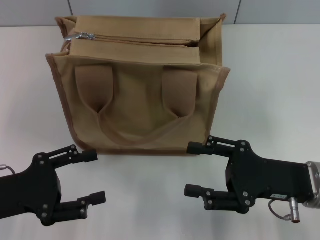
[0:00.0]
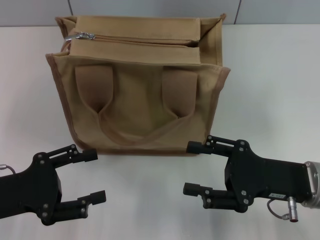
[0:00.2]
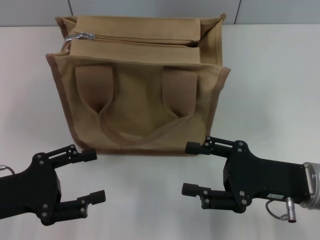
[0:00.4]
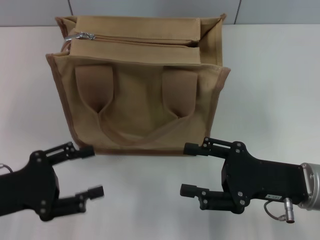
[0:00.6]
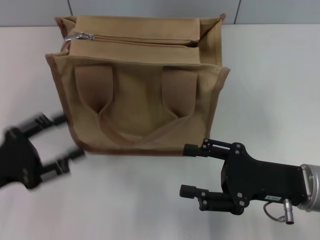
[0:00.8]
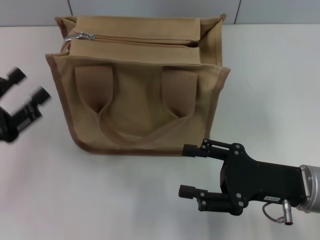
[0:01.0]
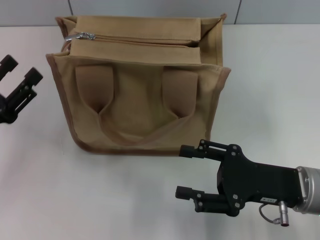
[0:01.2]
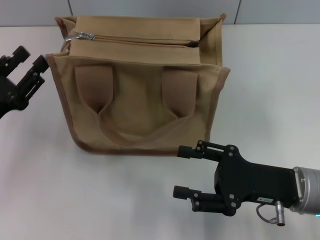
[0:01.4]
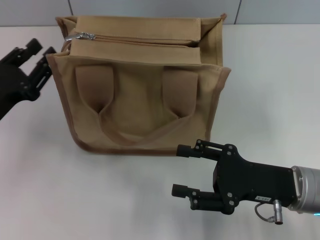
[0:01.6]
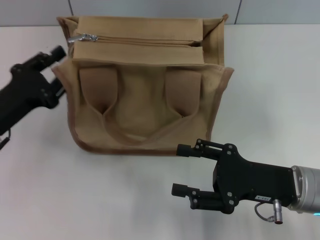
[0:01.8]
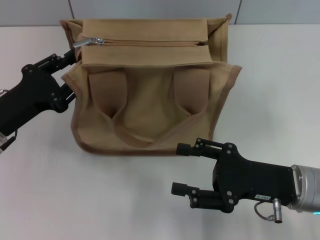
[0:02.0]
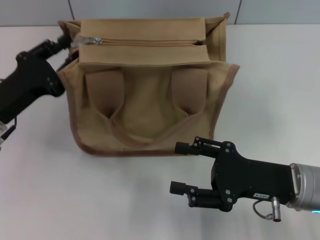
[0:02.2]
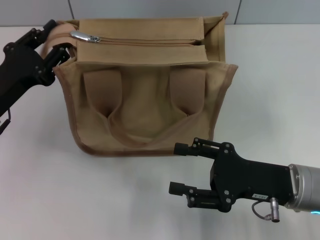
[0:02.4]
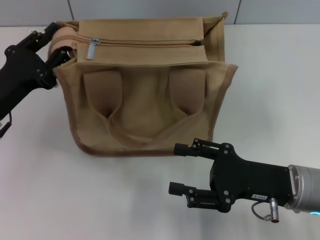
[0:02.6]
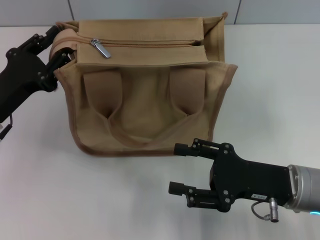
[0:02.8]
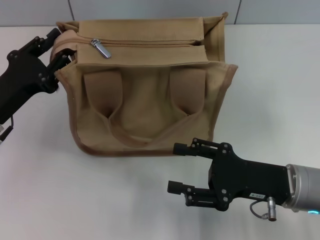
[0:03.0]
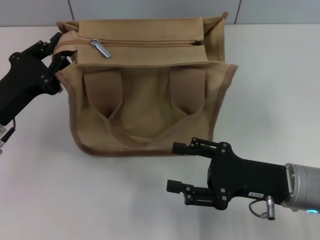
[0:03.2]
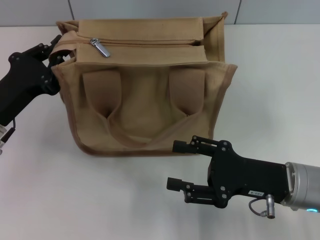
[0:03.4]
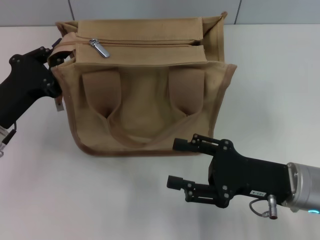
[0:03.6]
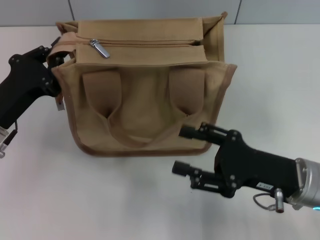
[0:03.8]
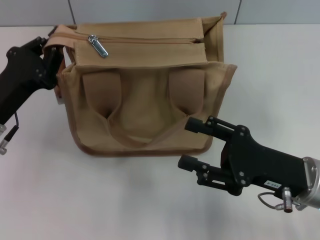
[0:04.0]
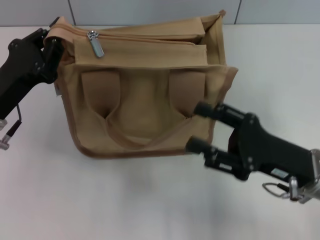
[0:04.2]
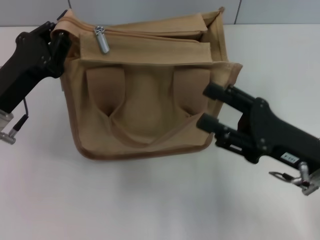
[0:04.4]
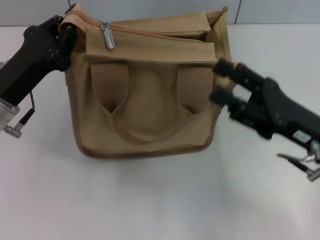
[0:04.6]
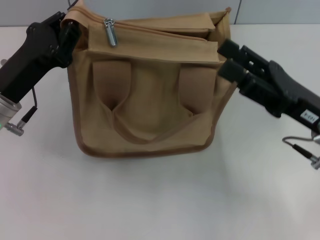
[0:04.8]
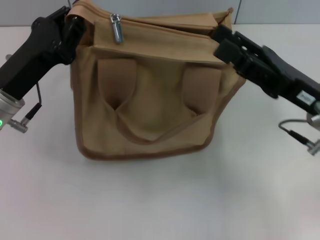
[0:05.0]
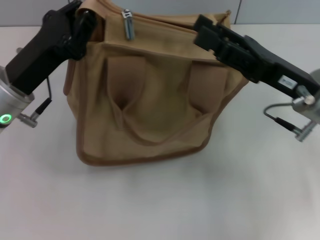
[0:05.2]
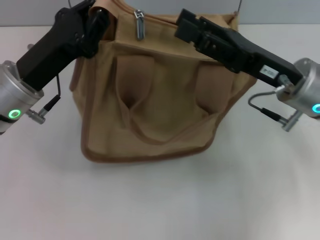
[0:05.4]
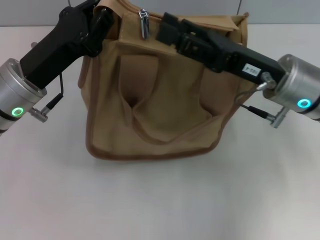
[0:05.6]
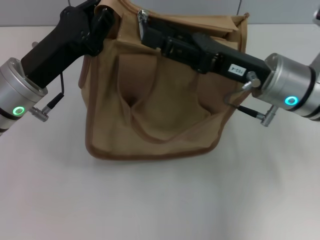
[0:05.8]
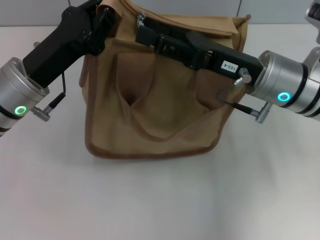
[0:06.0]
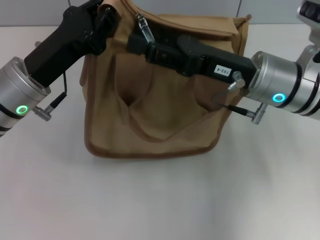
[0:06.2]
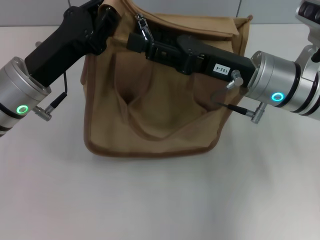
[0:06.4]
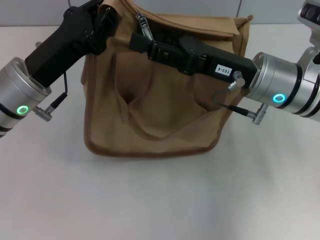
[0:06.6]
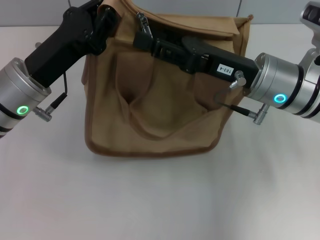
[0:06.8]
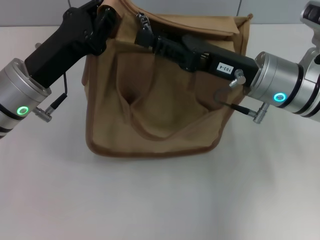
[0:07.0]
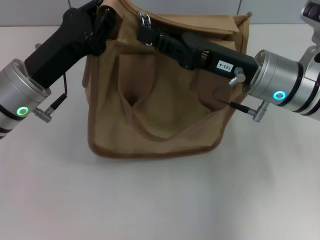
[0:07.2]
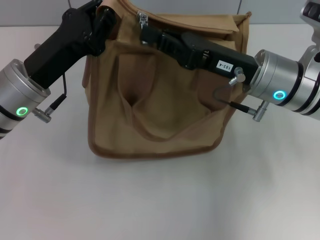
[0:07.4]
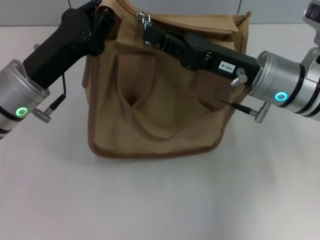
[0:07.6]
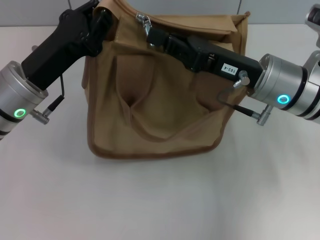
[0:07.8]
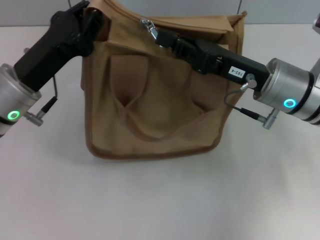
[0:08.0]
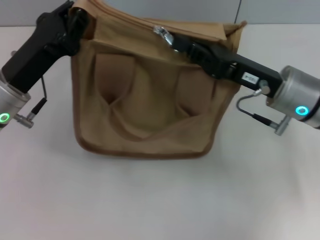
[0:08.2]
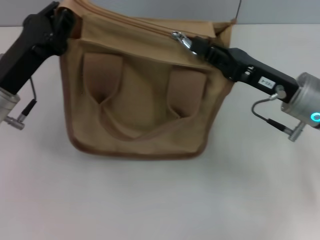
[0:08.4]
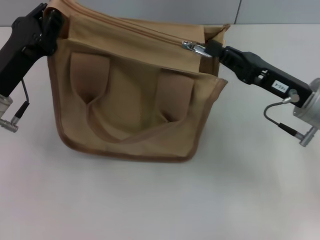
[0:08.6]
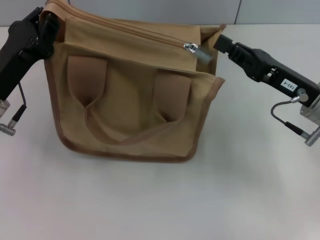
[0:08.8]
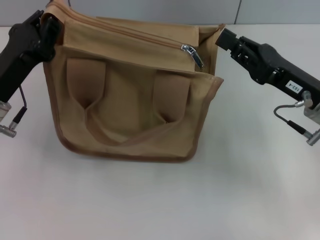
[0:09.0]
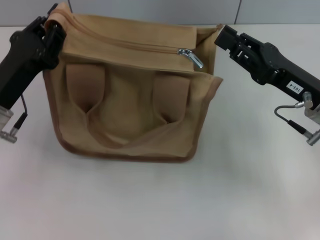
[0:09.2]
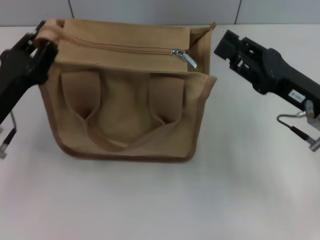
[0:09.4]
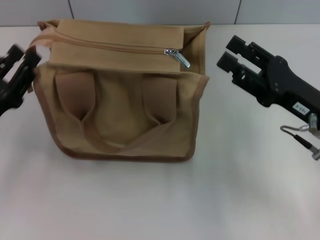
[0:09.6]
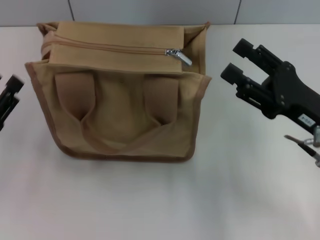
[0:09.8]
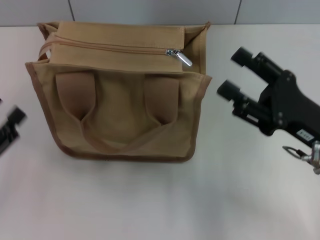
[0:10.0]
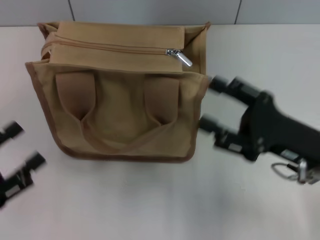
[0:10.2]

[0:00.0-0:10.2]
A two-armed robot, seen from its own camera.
Step, 0.0 to 9.0 s: Pull up the zipper with your right hand.
Step, 9.2 to 9.8 s: Grab the zipper with your left hand.
1.4 to 3.0 s: The left gripper closes up.
3.0 to 4.4 s: The left gripper closes up.
4.4 to 5.8 s: The left gripper shifts by about 5 cm. The right gripper goes some 10 cm forward, to the left and upward.
5.8 to 7.2 s: The right gripper closes its fingers.
7.2 to 8.8 s: The left gripper shifts by approximately 5 cm. Meanwhile the right gripper goes roughly 10 cm to the right, and closes.
8.8 to 10.2 s: The left gripper goes some 15 cm backward and to the left, and opens its fingers; the right gripper is displaced backward by roughly 5 cm, and opens its fingers.

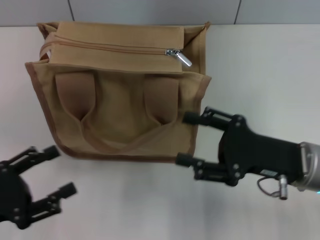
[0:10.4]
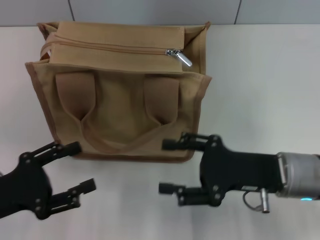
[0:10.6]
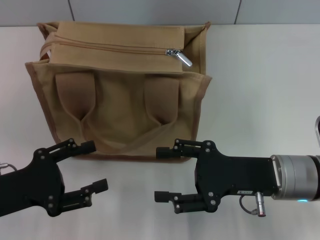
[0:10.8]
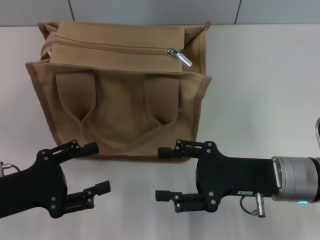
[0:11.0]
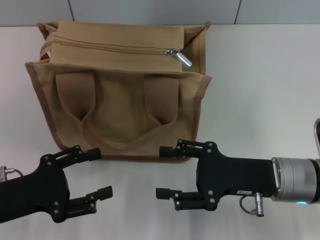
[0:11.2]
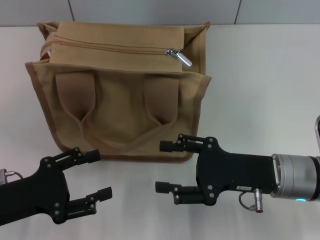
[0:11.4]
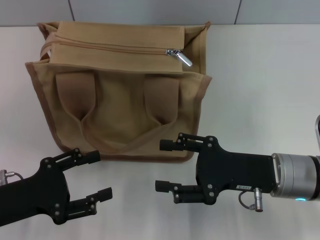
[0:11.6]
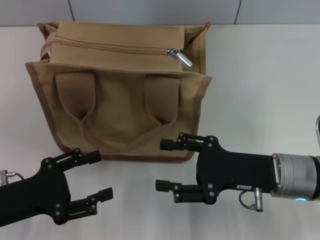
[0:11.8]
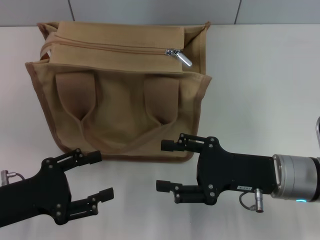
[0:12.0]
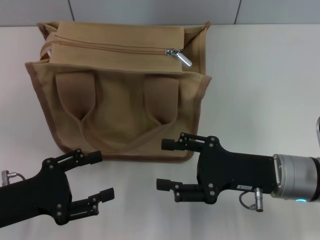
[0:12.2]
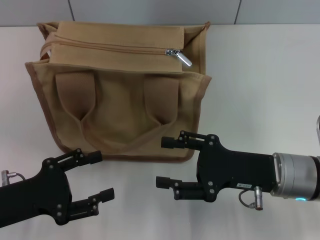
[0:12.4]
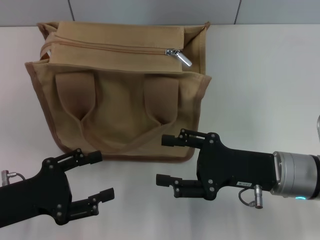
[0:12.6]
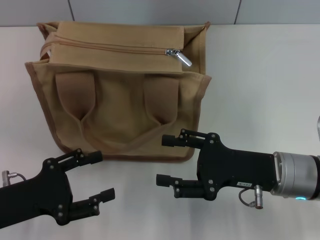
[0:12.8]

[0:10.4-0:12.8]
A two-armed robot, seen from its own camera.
10.4 to 11.6 s: The grippers make only small movements.
11.6 to 12.8 s: Both grippers stay about where they are.

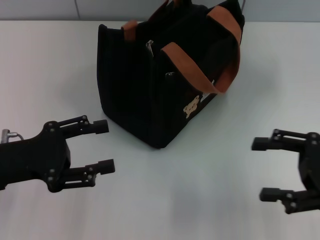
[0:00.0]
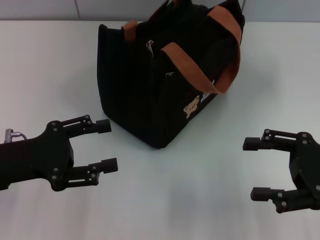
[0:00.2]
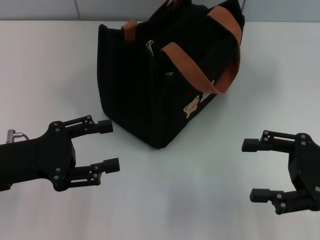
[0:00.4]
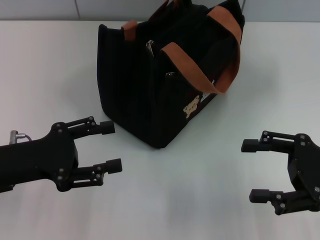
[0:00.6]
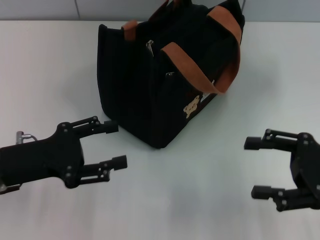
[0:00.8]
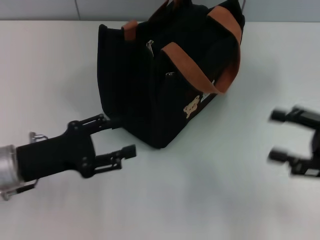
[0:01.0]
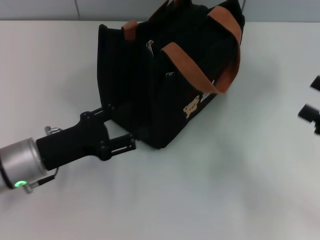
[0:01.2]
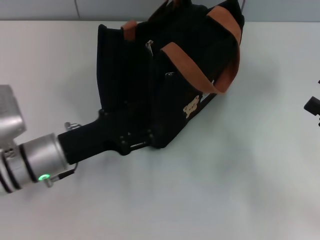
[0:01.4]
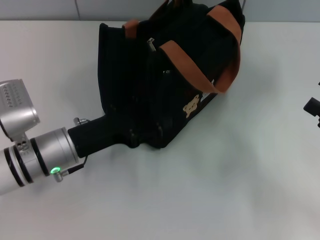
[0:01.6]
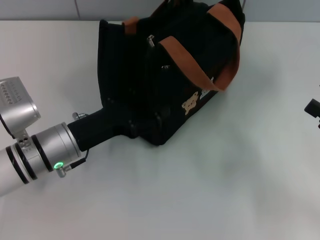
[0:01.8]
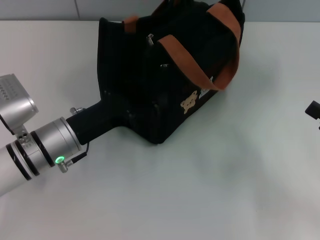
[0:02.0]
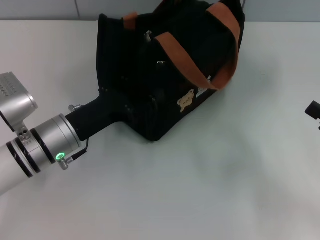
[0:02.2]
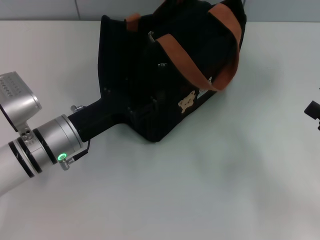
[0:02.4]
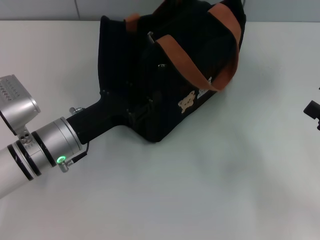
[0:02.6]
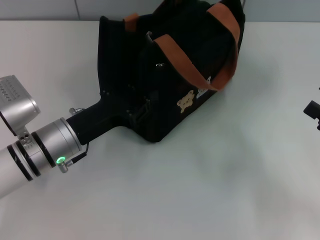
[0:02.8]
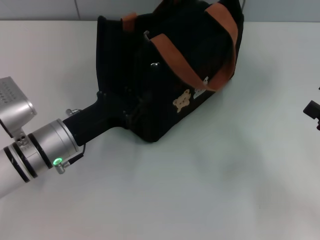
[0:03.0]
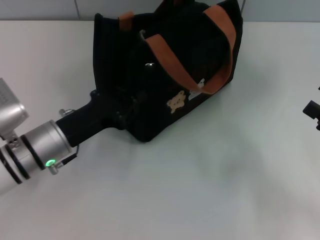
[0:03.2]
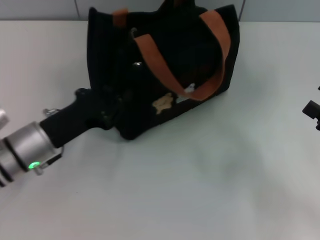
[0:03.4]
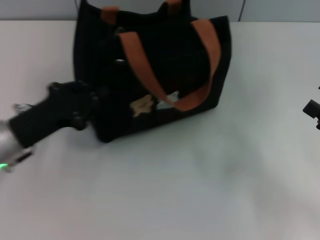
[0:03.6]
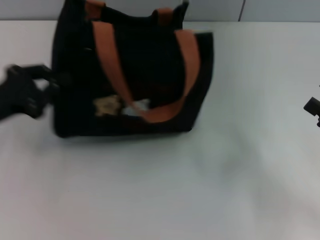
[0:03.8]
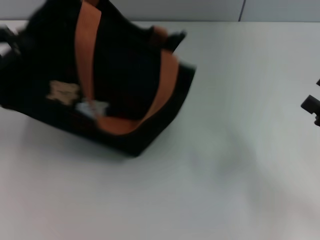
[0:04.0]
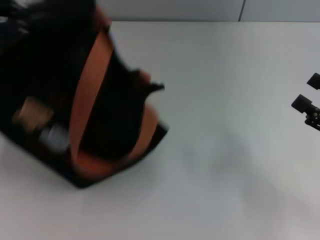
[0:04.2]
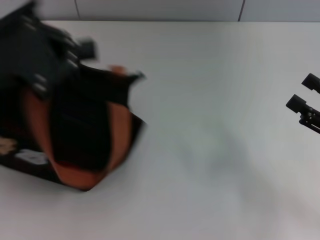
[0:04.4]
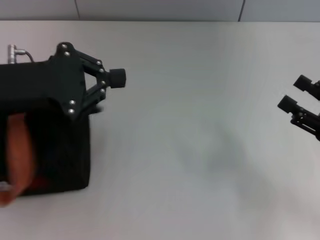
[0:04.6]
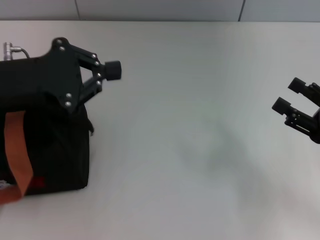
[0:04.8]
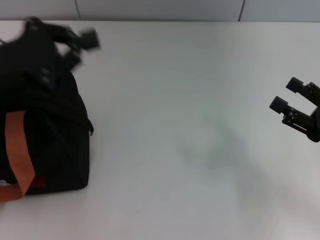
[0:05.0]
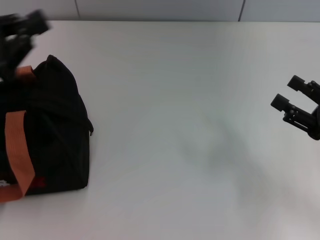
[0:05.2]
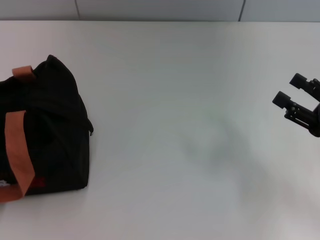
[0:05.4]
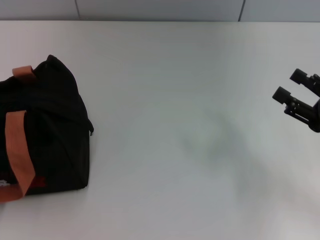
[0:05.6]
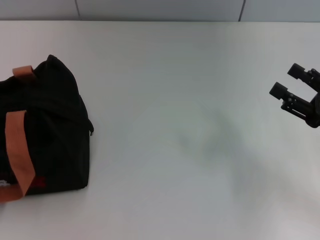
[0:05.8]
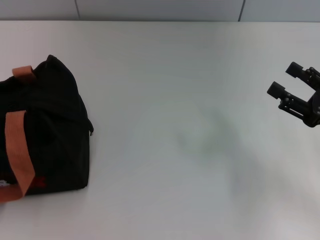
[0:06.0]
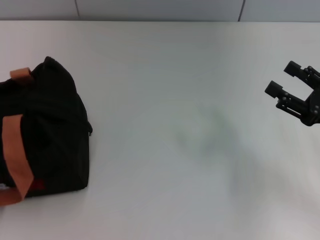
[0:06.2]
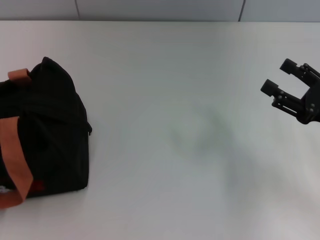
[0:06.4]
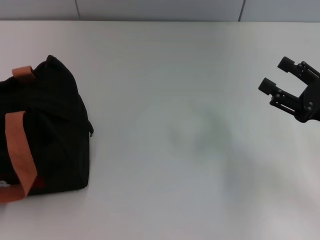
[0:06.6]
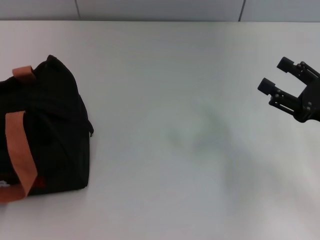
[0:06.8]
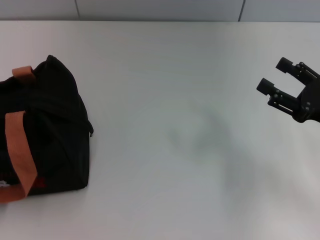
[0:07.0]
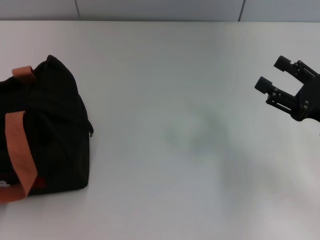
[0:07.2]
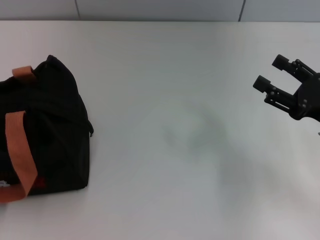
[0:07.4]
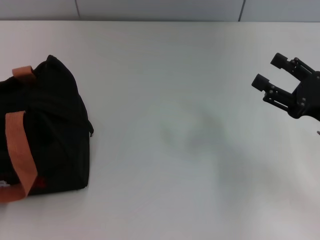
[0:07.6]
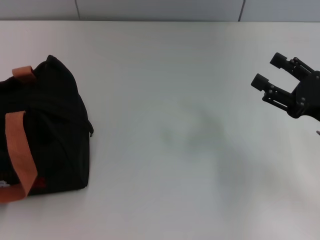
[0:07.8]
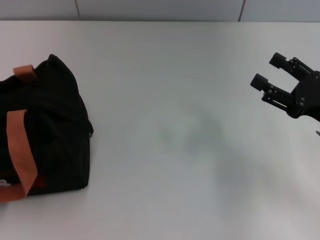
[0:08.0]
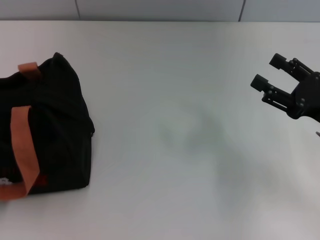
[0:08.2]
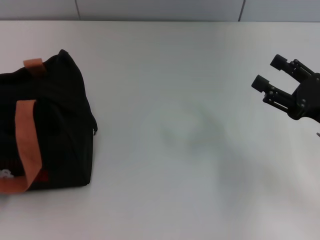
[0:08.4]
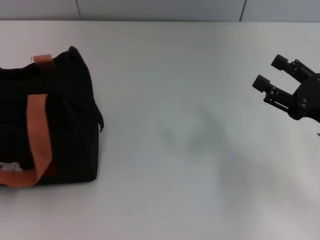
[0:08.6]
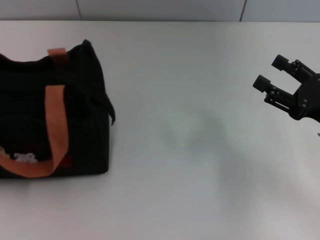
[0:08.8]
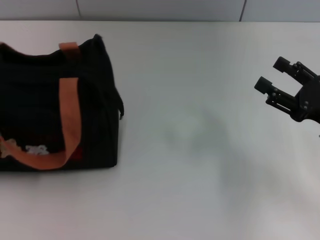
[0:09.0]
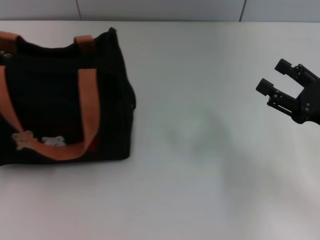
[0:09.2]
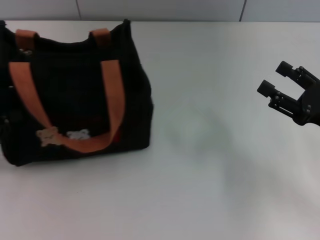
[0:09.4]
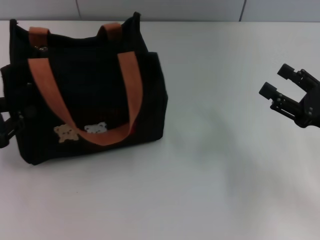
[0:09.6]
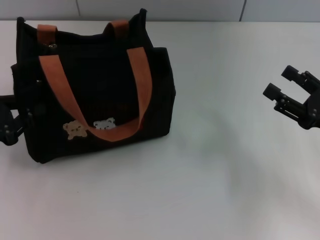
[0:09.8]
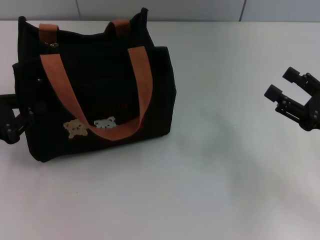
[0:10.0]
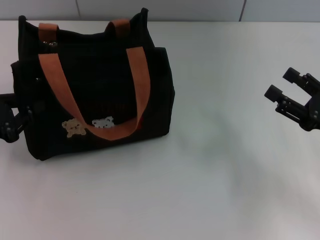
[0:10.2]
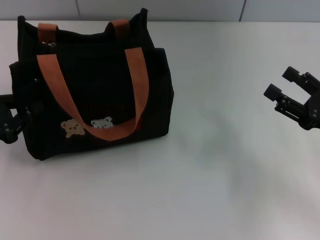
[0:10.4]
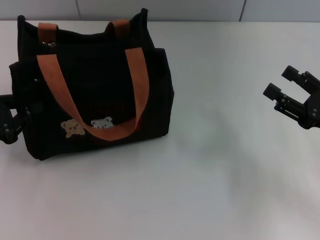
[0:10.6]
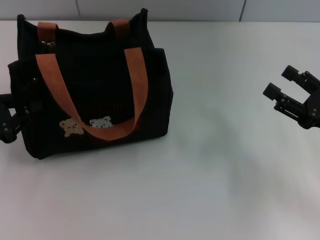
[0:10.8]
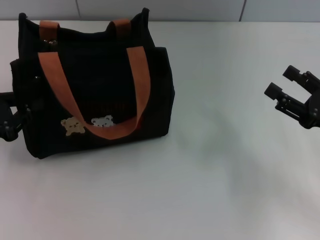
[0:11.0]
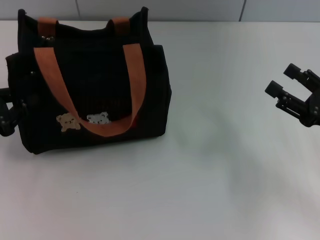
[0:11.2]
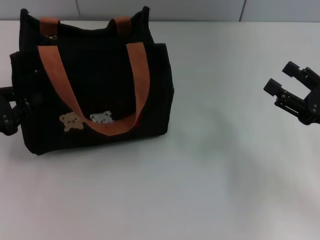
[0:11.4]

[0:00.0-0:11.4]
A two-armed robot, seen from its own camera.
0.0 to 1.4 s: The left gripper shifts roughly 10 cm to the right and downward; the right gripper changes place by some 5 cm.
1.4 to 2.8 s: The left gripper closes its fingers.
2.8 to 4.2 s: The left gripper moves upward and to the left, roughly 20 cm, and closes.
4.2 to 5.6 s: The left gripper is displaced backward, downward and to the left by approximately 15 cm.
7.2 to 8.6 s: The left gripper moves forward, roughly 5 cm, and closes its fingers.
8.6 to 10.0 s: The left gripper shifts approximately 10 cm forward and to the right, and closes up.
10.0 to 11.4 s: The two grippers keep their place.
